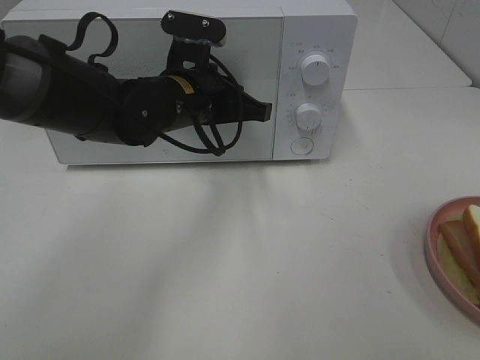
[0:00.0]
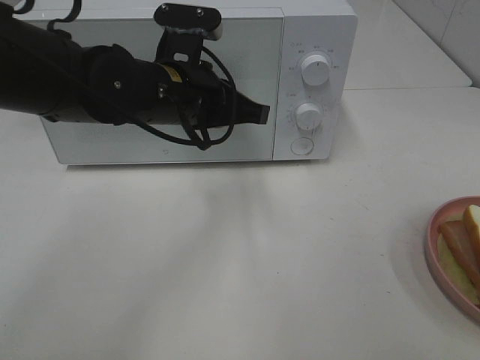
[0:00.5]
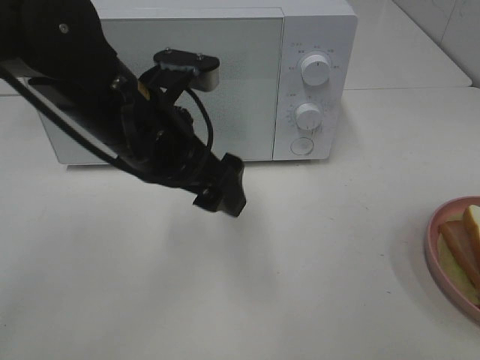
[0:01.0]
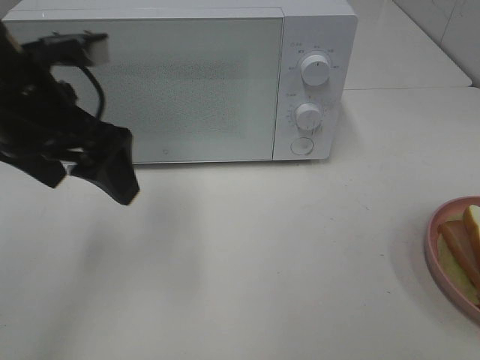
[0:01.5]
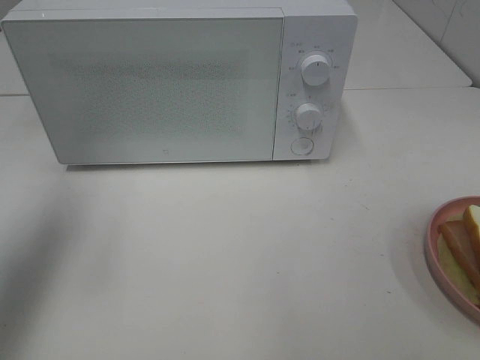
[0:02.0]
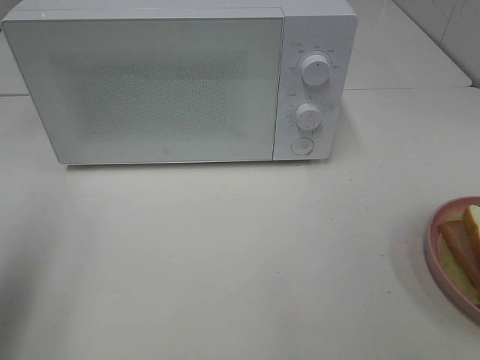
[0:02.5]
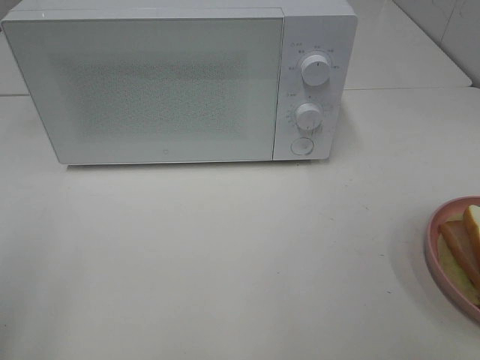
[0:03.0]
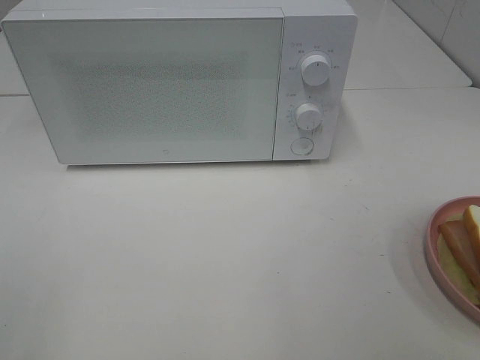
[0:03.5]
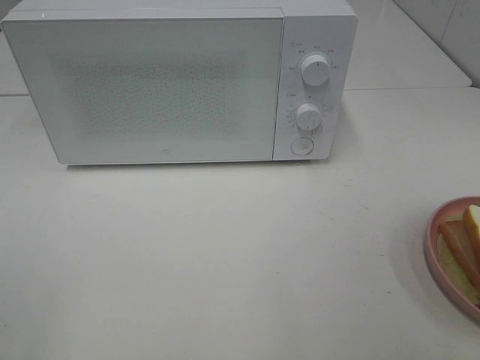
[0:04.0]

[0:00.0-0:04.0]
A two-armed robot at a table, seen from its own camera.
Task of the whole recording: Heat Sandwich.
0:00.0 to 0:02.0: The left gripper goes some 30 cm to the left, upward and backward, and opens up.
0:02.0 to 0:04.0: The left gripper moves backward, approximately 25 cm.

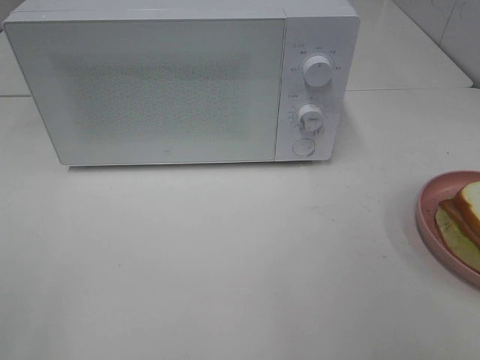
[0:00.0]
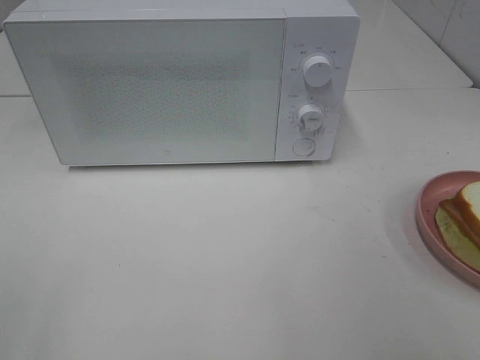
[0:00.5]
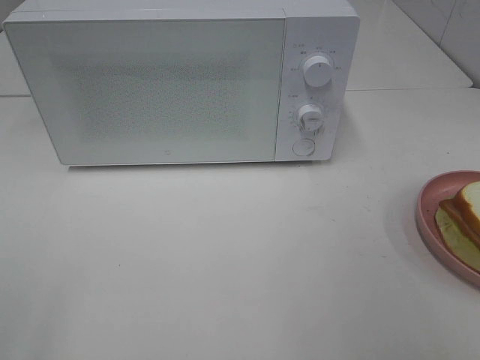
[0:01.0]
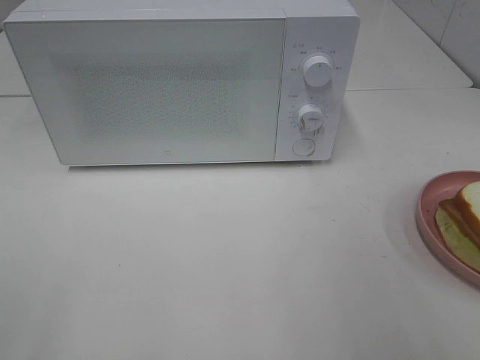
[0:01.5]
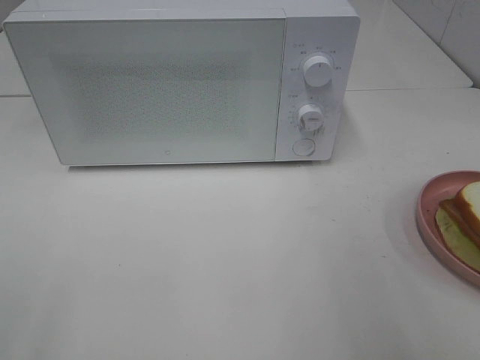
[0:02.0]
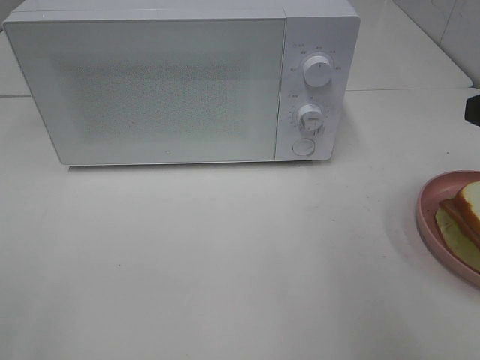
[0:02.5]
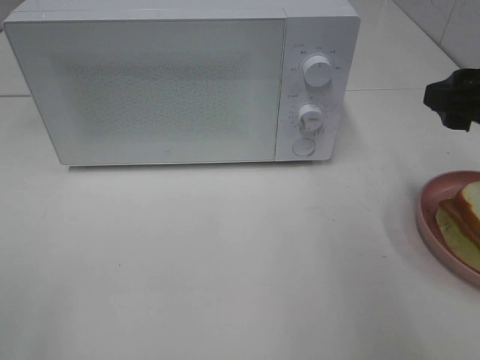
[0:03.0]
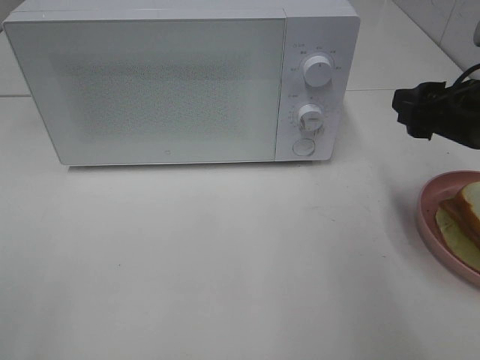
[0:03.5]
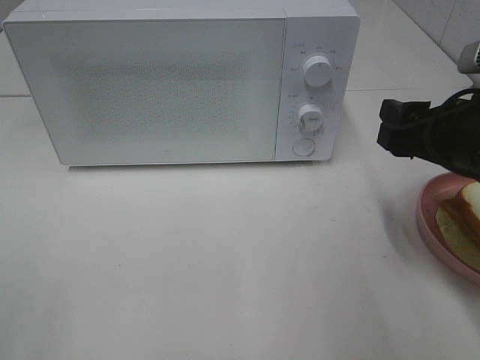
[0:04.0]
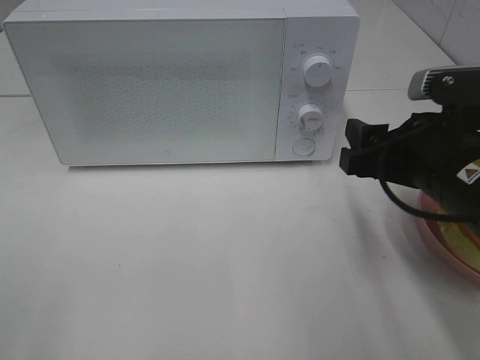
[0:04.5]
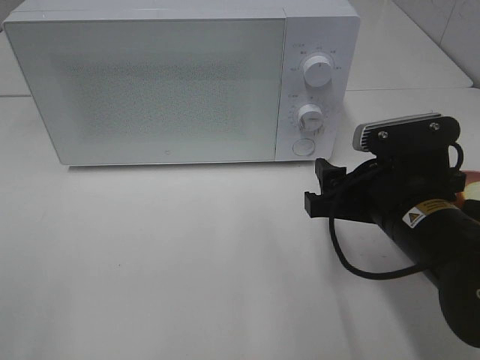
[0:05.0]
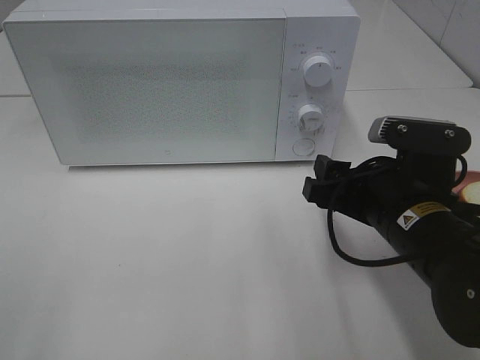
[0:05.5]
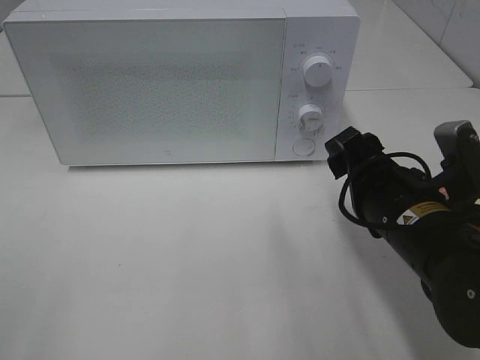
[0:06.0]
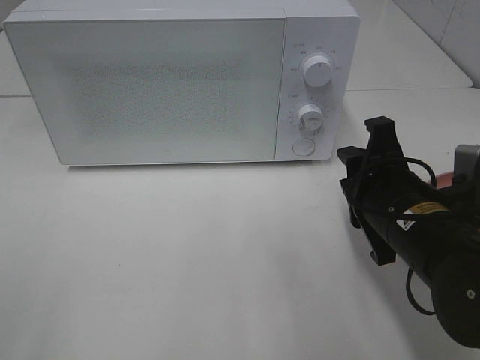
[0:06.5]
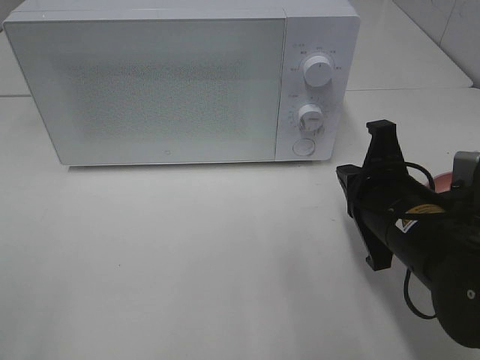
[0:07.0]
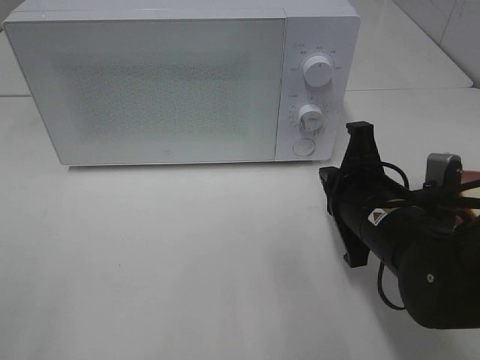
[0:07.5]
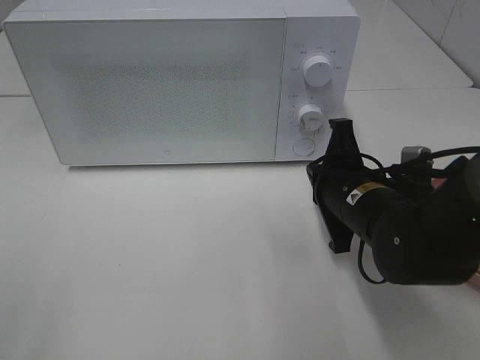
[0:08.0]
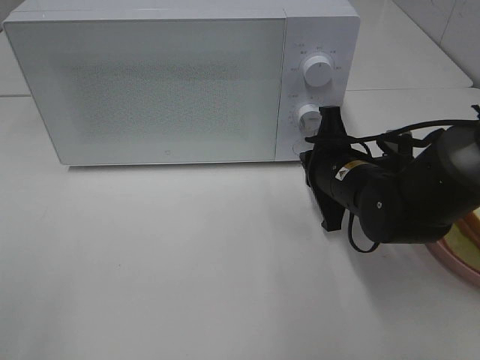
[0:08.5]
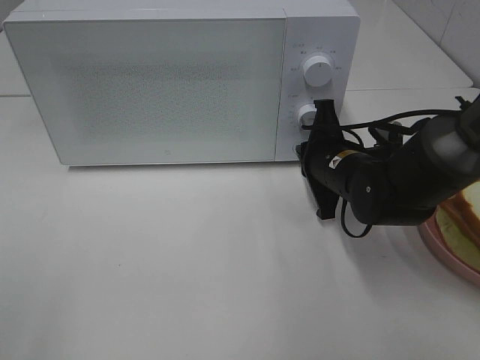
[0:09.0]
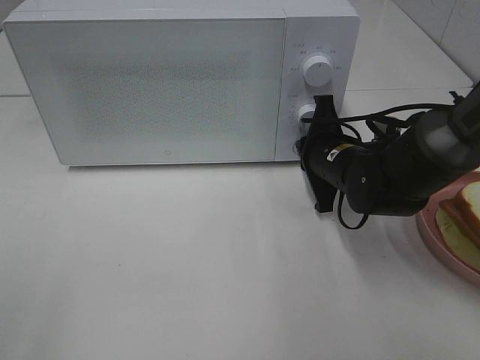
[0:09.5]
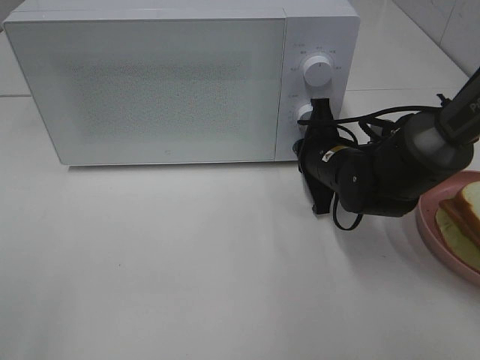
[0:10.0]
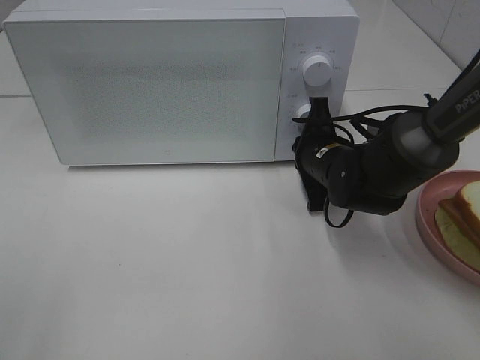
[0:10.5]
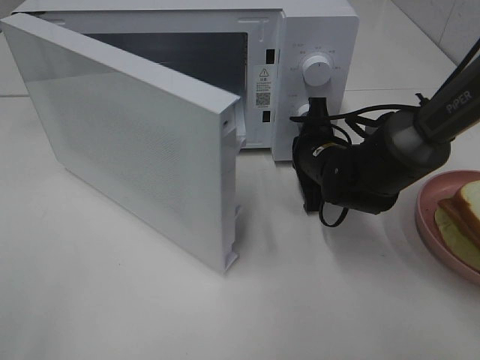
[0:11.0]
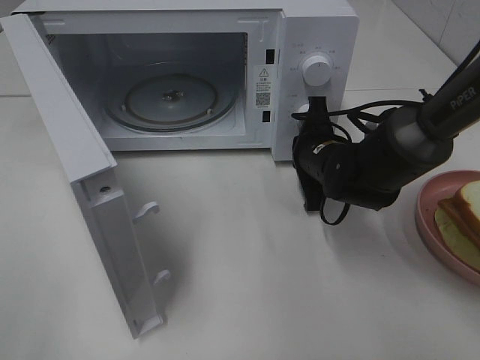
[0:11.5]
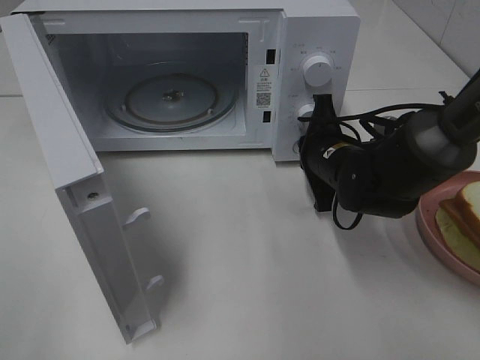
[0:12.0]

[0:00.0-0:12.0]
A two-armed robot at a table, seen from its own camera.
Task of the whole recording: Heat Sandwich.
0:02.0 to 0:04.0: The right gripper goes some 15 cm downward, forward and to the left.
0:04.0 to 0:06.0: The right gripper goes some 10 cm downward and to the left.
0:06.0 to 0:08.0: The right gripper heads forward, covering some 5 cm, and closes its fingers.
0:08.0 to 0:10.0: The right gripper shifts about 10 cm forward.

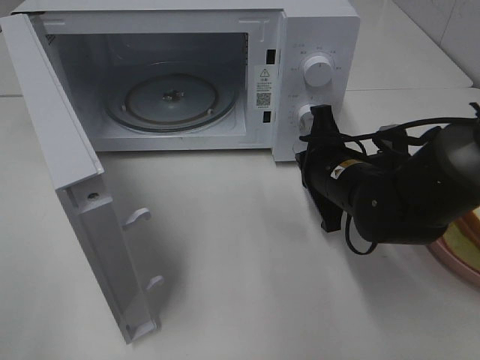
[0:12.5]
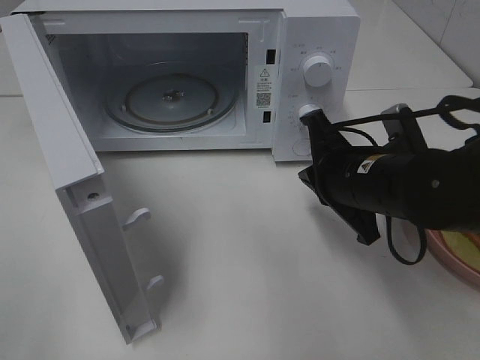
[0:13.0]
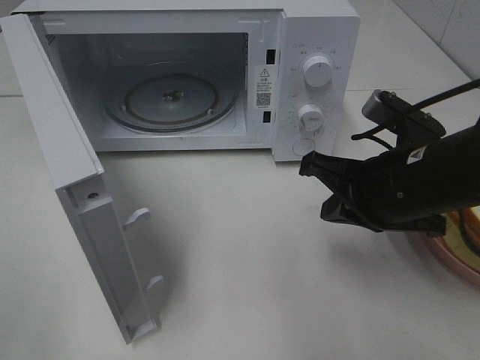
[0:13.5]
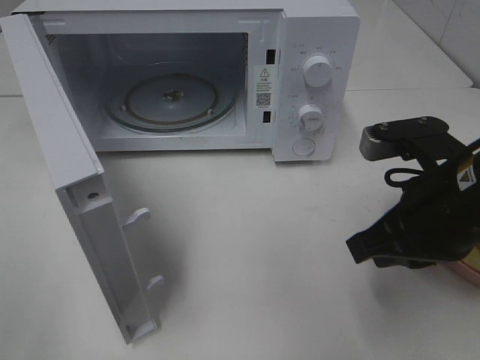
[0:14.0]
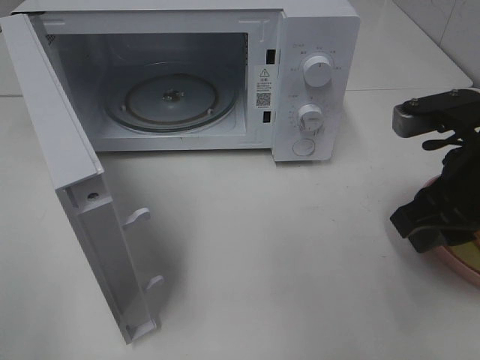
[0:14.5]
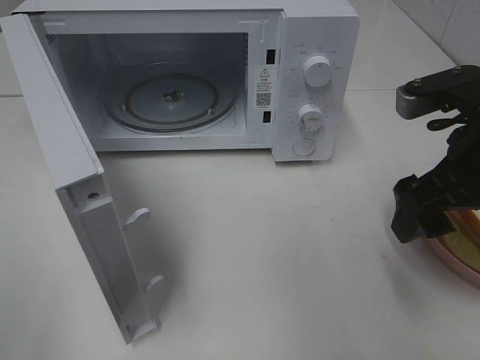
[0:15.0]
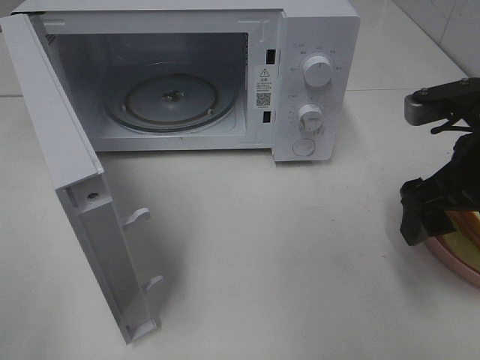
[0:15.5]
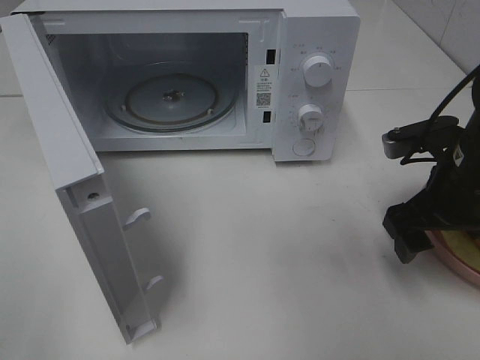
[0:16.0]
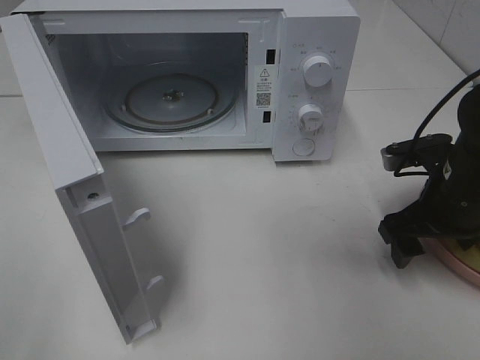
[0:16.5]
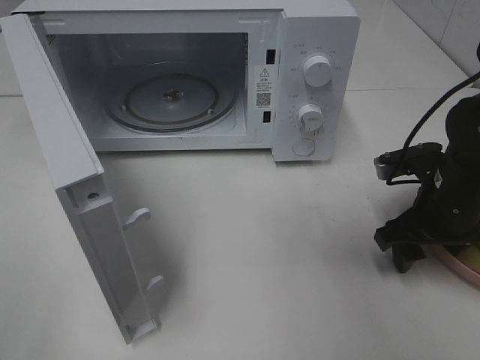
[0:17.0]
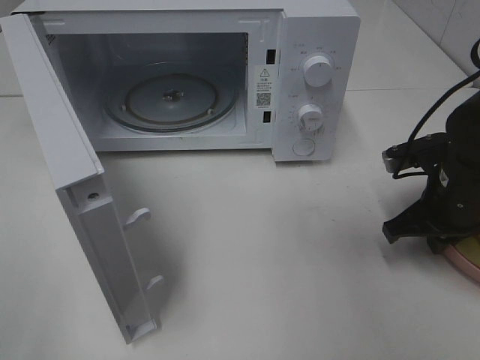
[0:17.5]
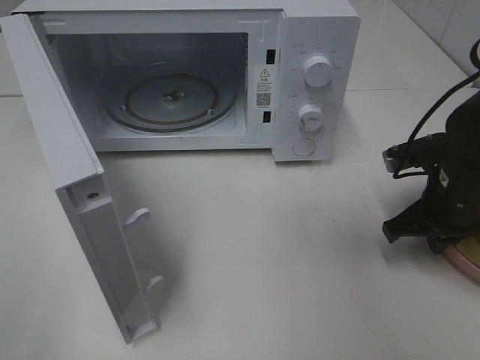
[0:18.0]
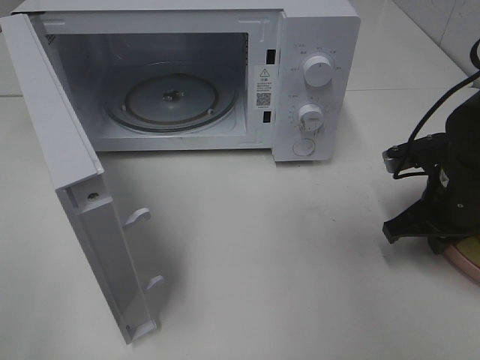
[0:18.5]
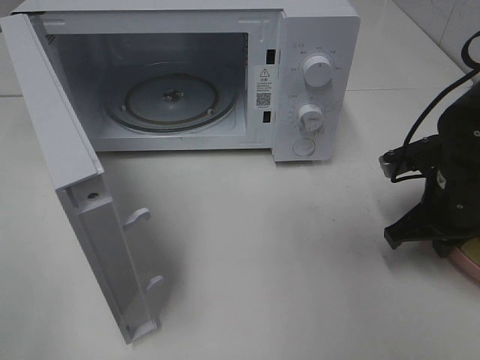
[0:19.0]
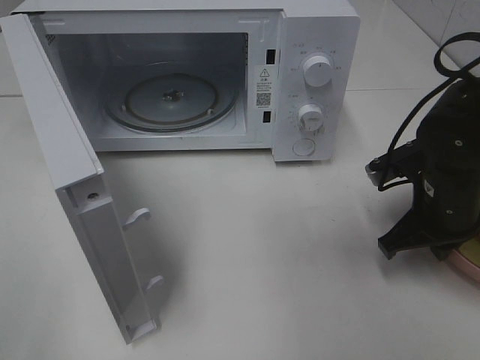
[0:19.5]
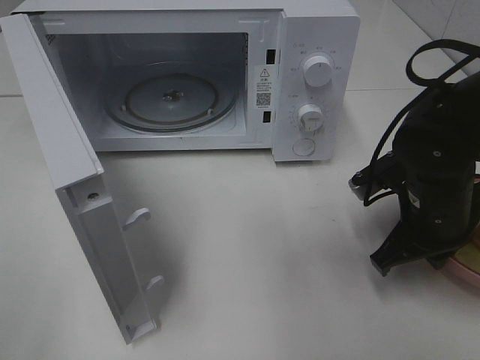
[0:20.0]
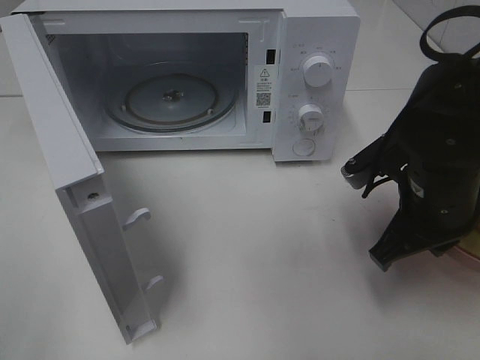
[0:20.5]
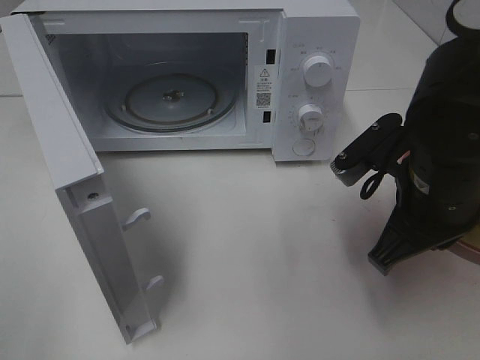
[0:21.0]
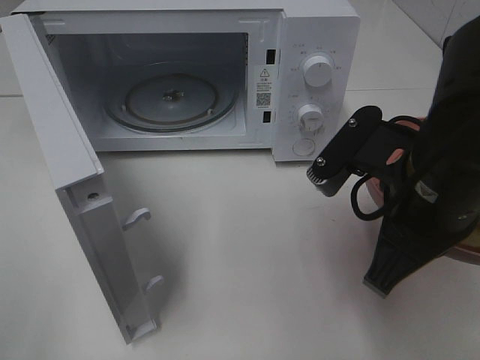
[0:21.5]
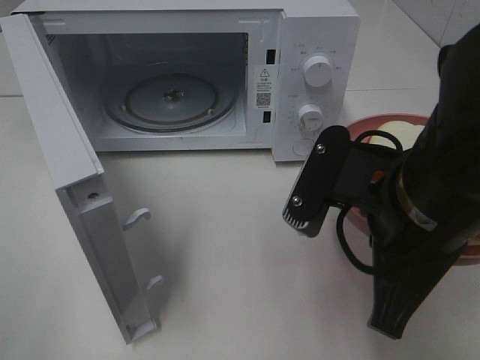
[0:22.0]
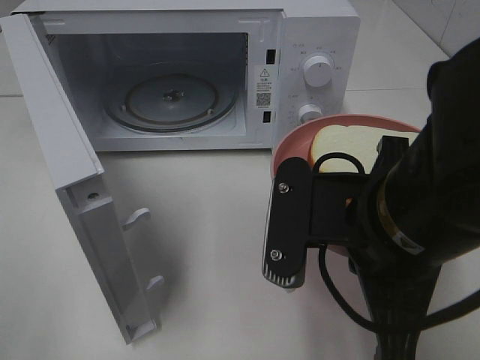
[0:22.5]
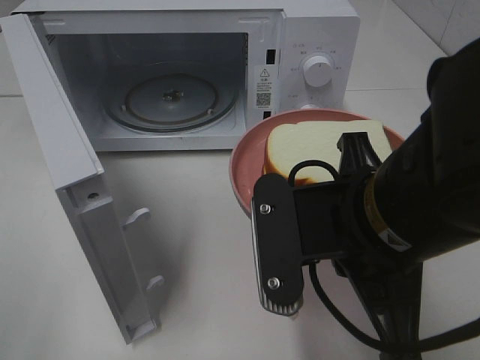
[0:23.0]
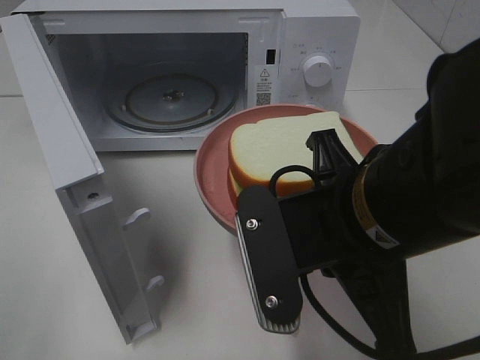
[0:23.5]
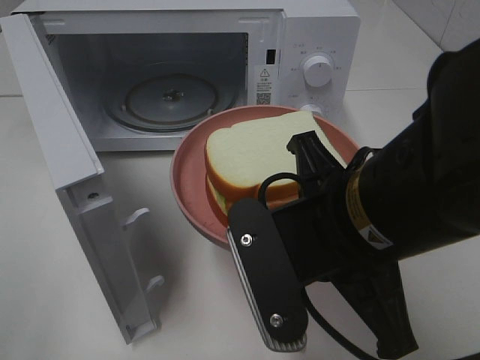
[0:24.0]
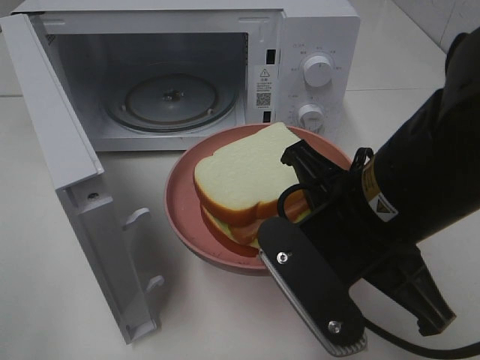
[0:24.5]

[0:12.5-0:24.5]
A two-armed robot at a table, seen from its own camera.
Task of the whole recording: Heat Sandwich.
Step, 0:12.5 to 0:18.0: Right hand: grab the plate with the sandwich.
0:12.5 to 0:14.5: The right gripper is displaced upward, backward and to the right by some 15 cm, and opens.
0:14.5 to 0:16.5: The right gripper travels downward and forward by some 10 cm, and opens.
0:16.5 to 0:18.5: The right gripper closes.
0:18.5 to 0:20.5: The right gripper moves to the left, about 5 cm.
0:20.5 to 0:22.5: The right gripper goes about 15 cm backward, to the left and upward.
